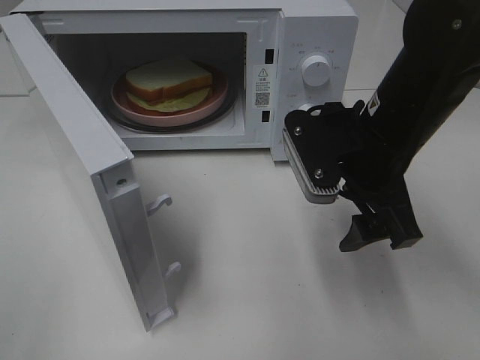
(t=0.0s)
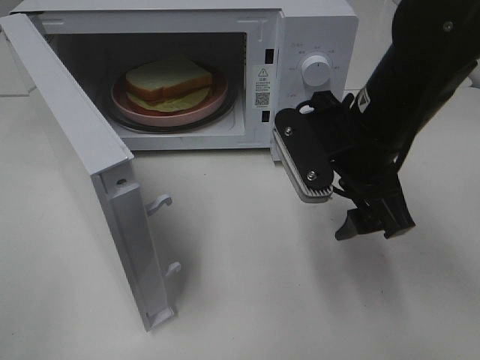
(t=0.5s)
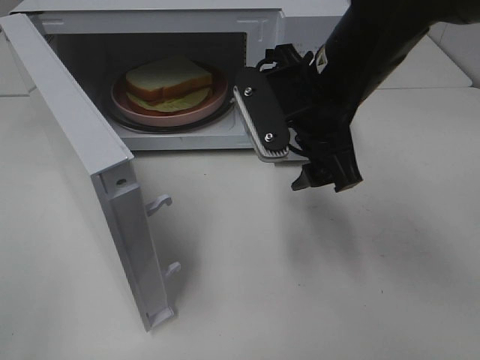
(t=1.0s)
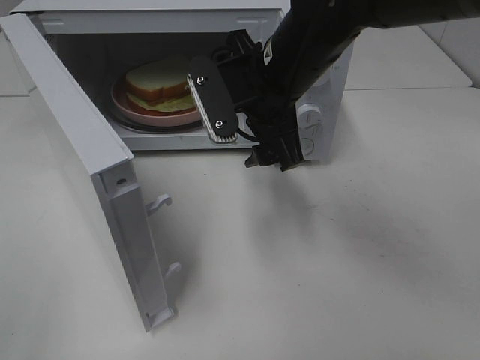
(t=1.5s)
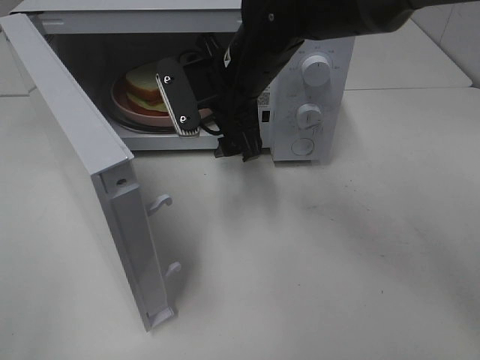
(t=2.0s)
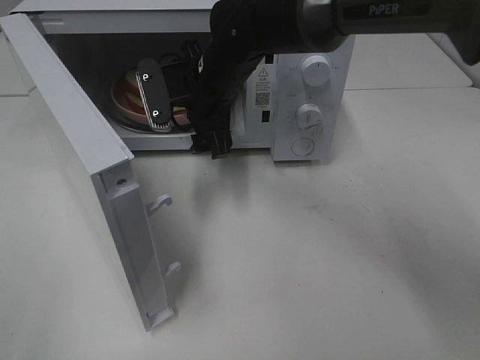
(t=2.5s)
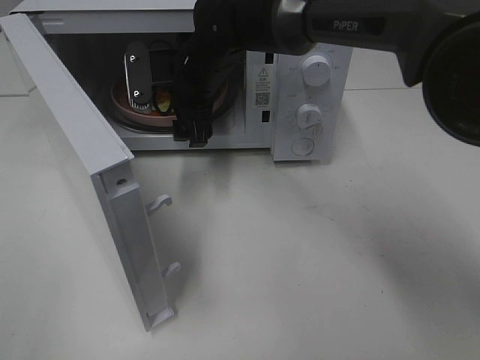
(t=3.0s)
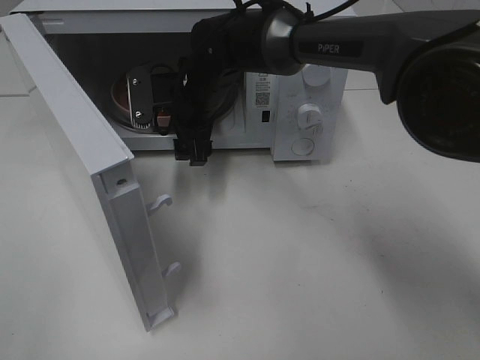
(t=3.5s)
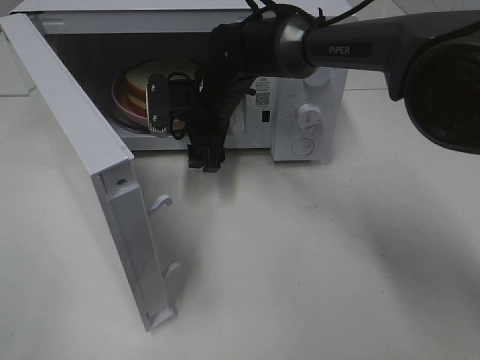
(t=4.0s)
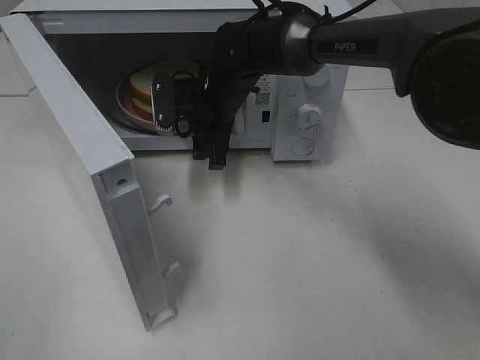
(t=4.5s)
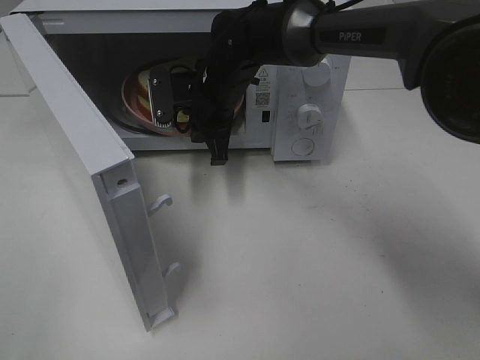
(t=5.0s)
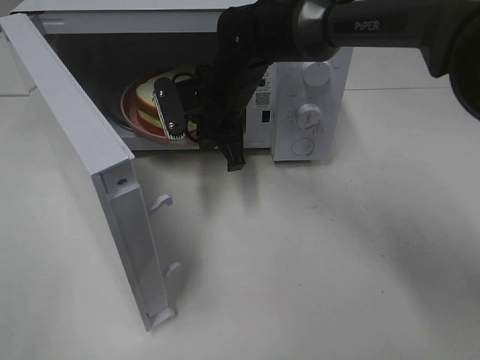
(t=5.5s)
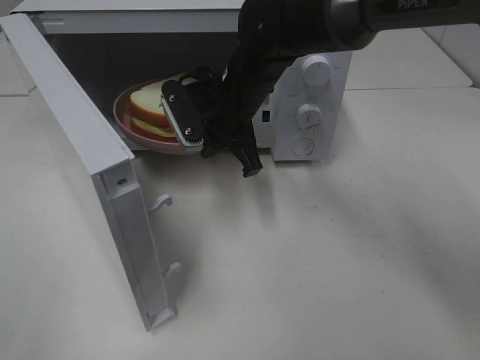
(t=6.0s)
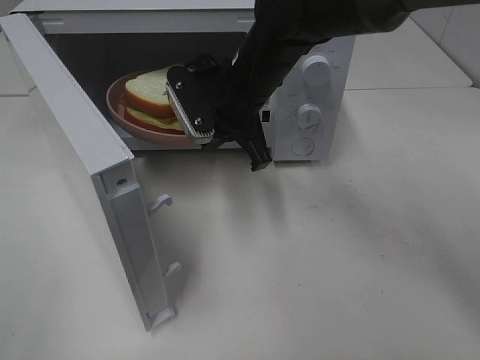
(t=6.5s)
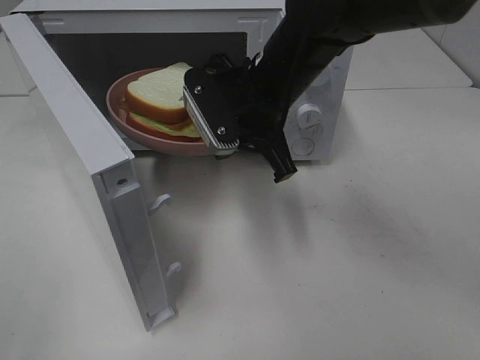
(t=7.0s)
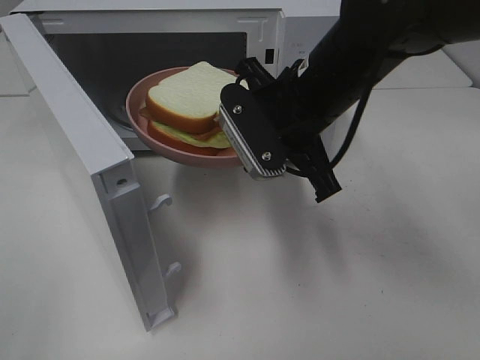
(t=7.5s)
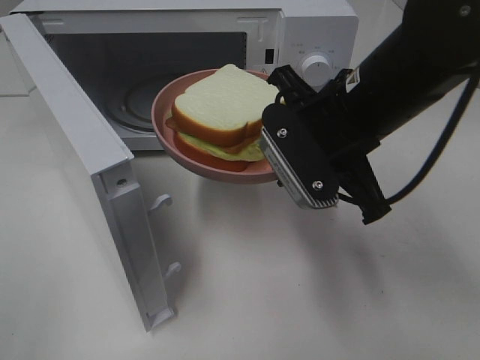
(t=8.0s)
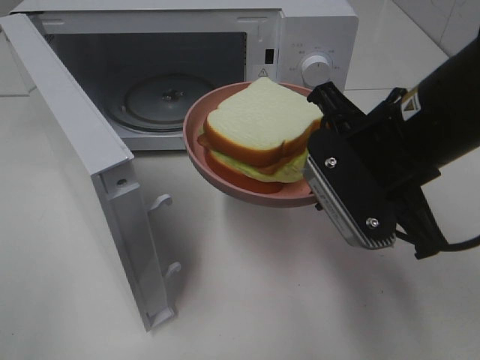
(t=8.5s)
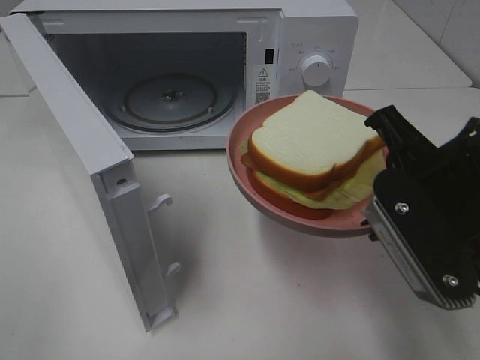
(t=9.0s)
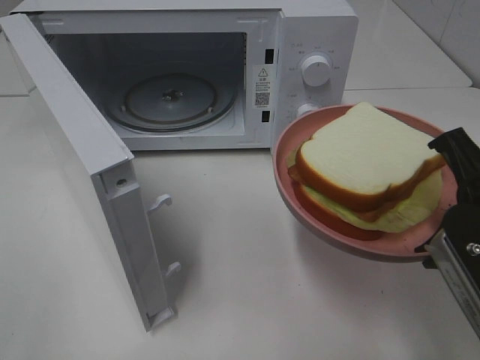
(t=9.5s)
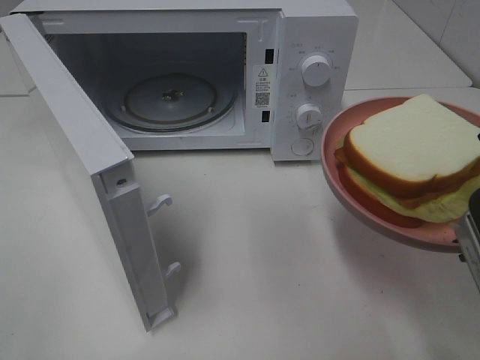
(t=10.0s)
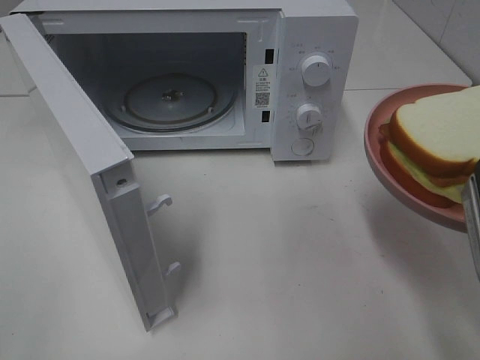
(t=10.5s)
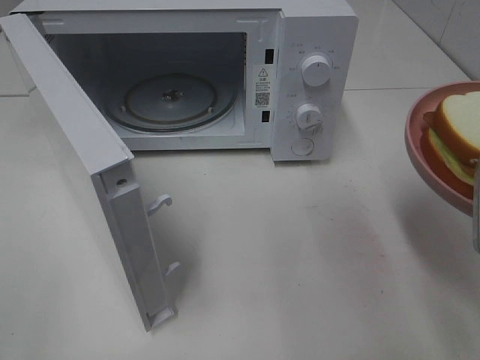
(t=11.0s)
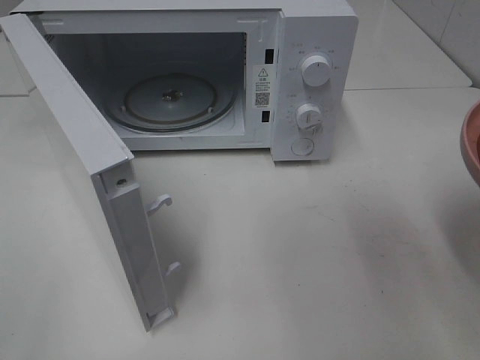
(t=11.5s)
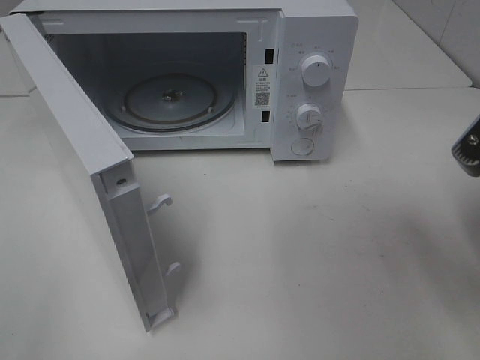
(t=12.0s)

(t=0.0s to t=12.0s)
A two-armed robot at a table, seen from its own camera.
Task of the whole recording: Heat Sandwich.
Step, t=0.0s - t=4.5s: Right hand: grab the plate with the sandwich.
t=0.0s - t=2.0s: The right gripper shifts approximately 15 cm to the left and forward.
t=2.0s - t=4.0s: The right gripper moves downward and forward, roughly 10 cm.
t=4.0s - t=6.0s: The right gripper changes place by roughly 5 cm, and closes up.
t=6.0s - t=8.0s: The right gripper is displaced backward, to the right and upward by approximately 20 cm.
t=8.0s - t=10.0s: The right gripper shifts roughly 15 cm backward and to the right.

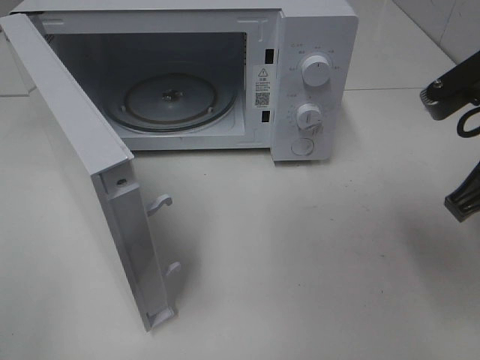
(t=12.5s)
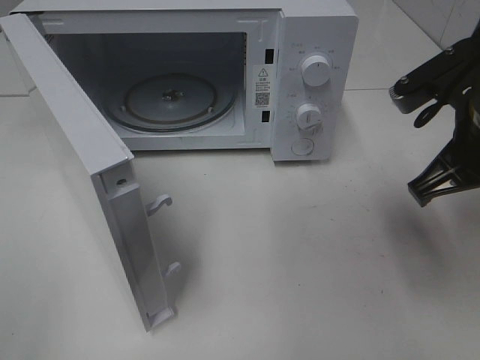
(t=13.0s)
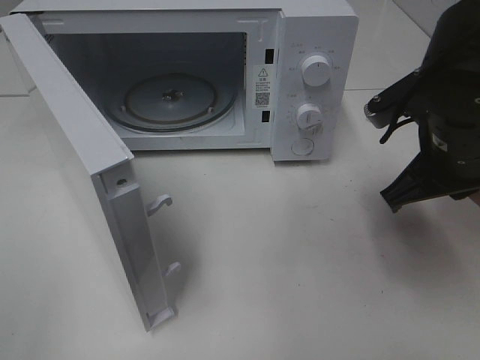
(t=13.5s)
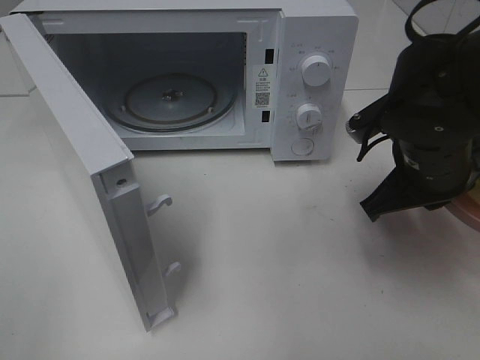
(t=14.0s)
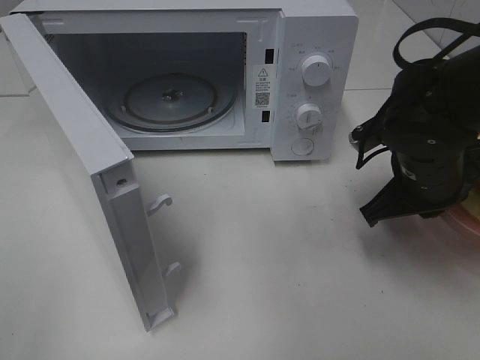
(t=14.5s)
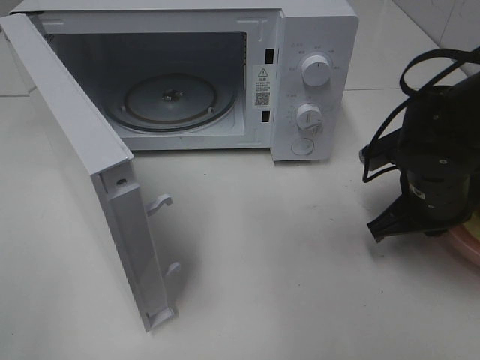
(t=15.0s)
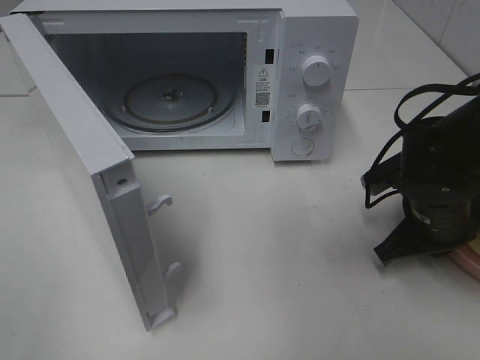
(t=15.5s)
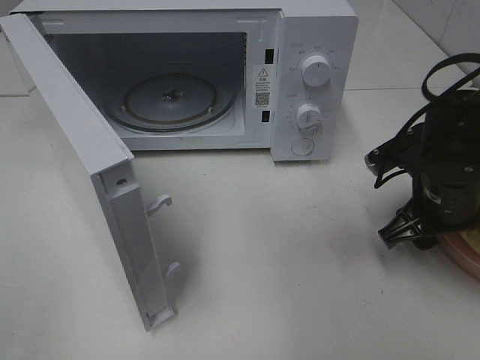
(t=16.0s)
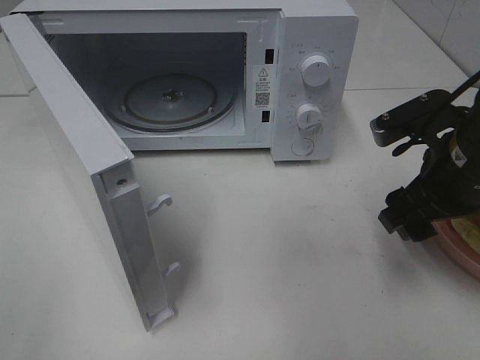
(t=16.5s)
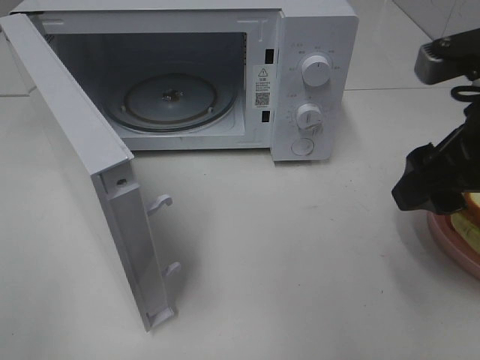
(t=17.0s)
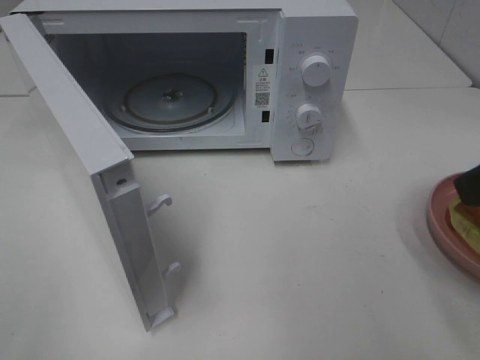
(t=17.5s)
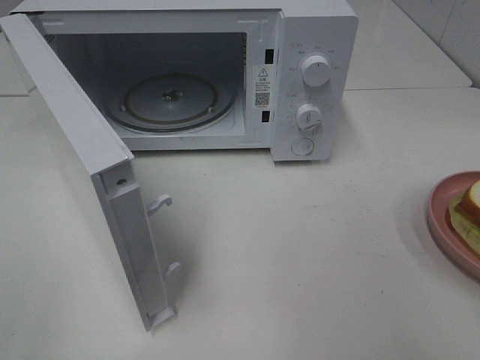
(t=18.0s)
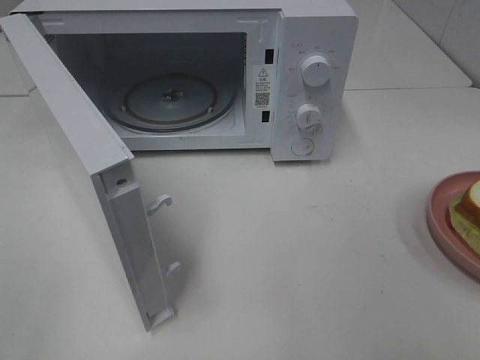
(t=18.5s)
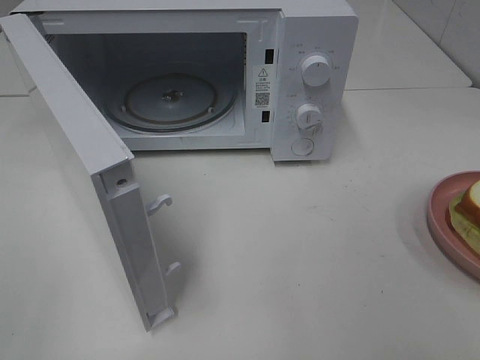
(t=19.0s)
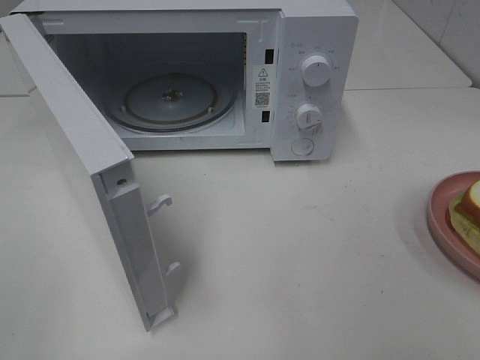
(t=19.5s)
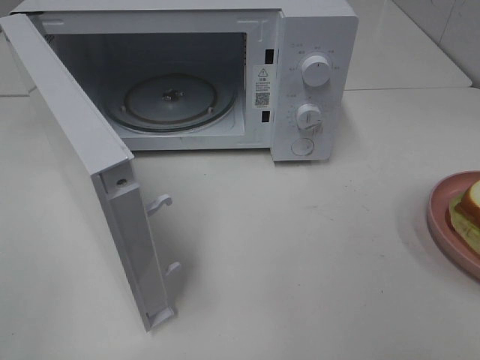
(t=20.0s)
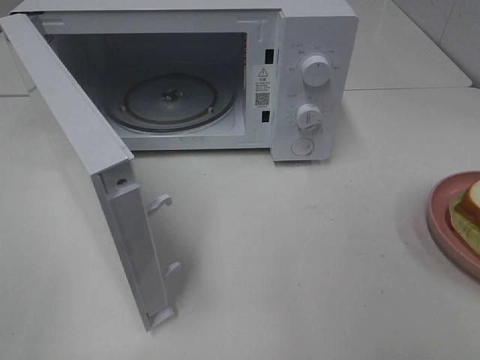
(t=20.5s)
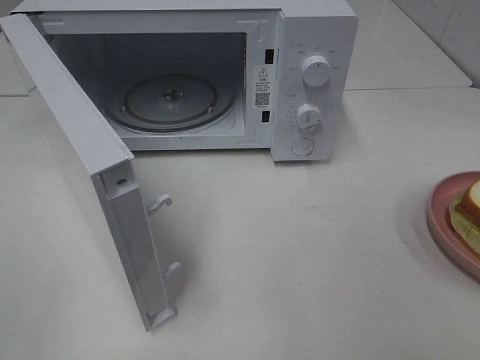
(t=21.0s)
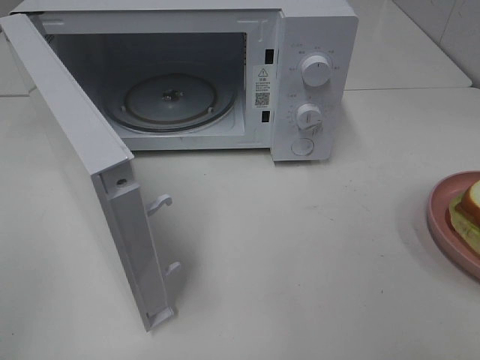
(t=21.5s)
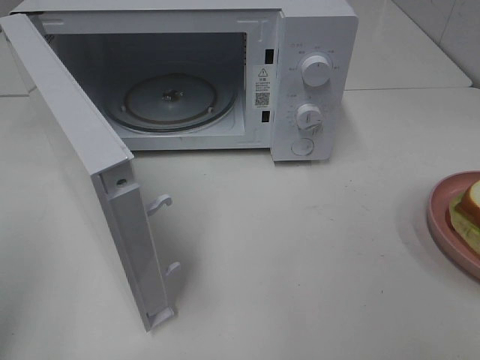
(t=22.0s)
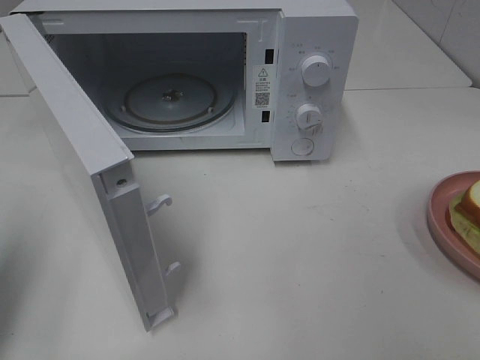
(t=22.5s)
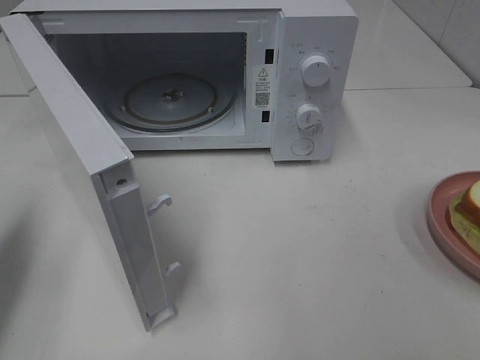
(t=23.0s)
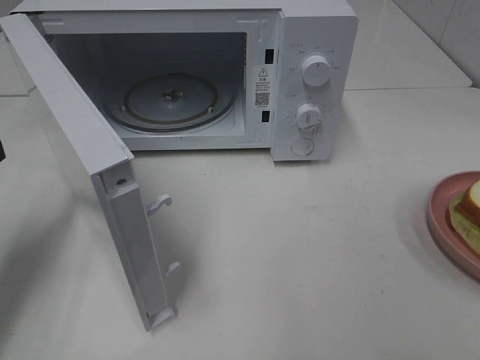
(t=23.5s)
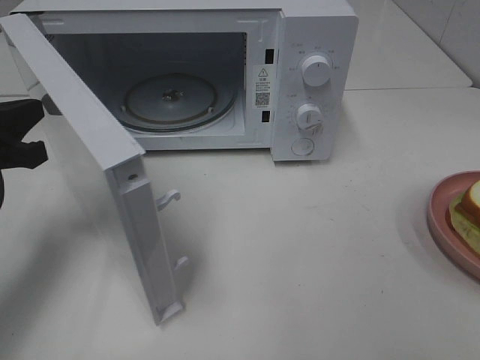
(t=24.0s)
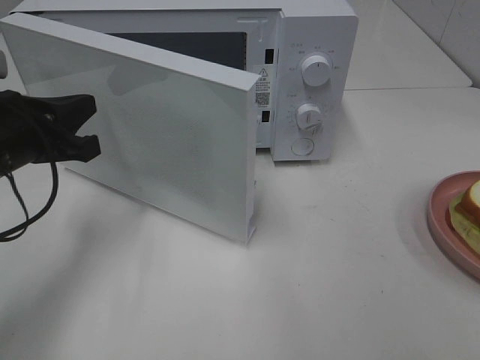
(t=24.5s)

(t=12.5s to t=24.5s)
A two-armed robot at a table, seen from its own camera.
Task of the whole recording: Heat Sandwich.
Step, t=12.5s - t=17.0s: Right hand: place the plate on the table.
t=12.5s - t=14.5s: The right gripper heads downward and forward, covering approximately 15 cm.
t=14.5s - t=16.5s: The right gripper ends up some 5 cm from where it was, and opens up.
t=16.5s - t=18.5s: The right gripper is displaced backward and upward by some 25 cm.
t=20.5s - t=22.5s: The left gripper is displaced forward by about 15 cm, and closes up.
t=22.5s - t=24.5s: The left gripper heads forward, to the right and downward, covering some 15 cm.

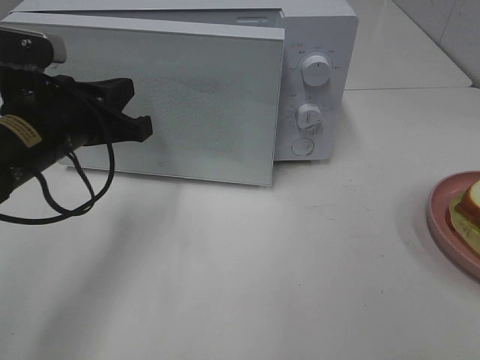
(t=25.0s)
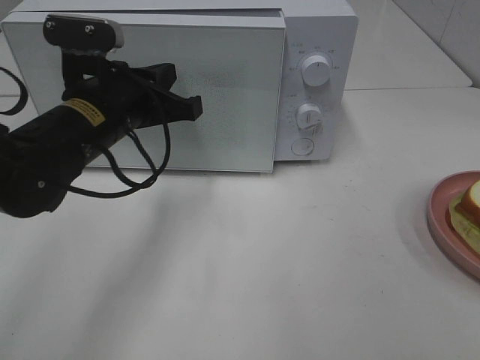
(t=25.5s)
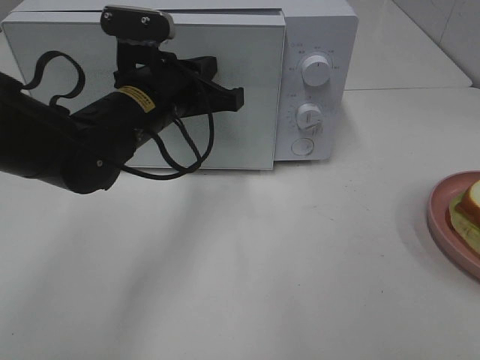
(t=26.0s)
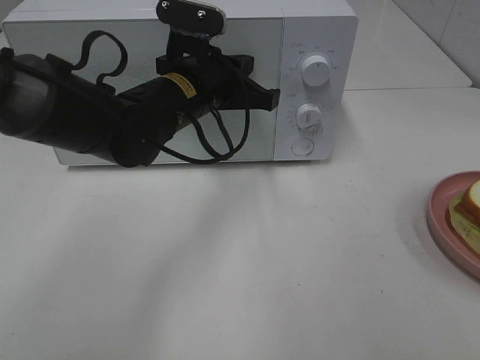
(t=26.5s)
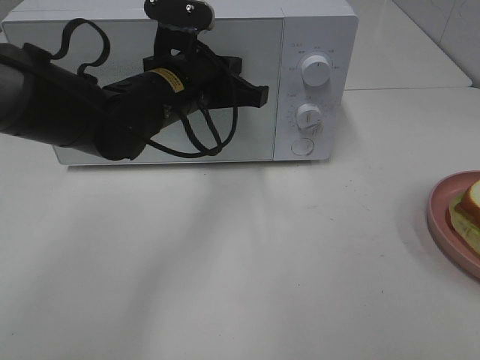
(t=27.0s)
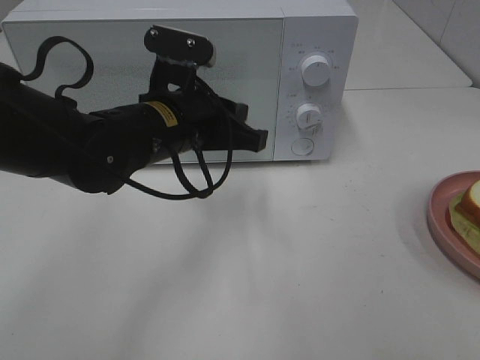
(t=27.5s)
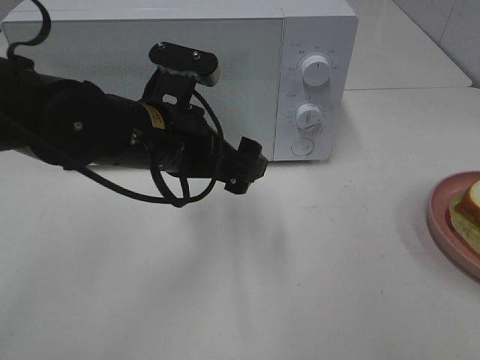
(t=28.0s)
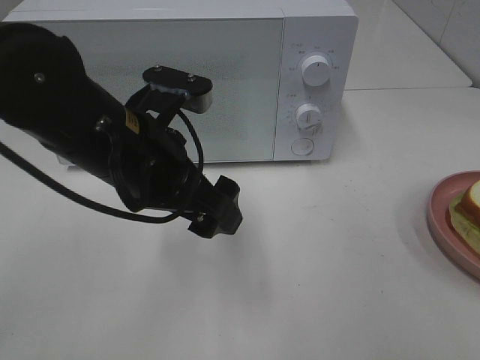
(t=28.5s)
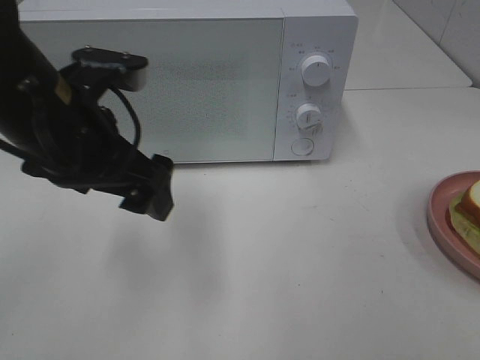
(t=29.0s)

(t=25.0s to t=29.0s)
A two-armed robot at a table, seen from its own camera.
Task of the whole recording: Heat Sandwich.
Step, t=25.0s - t=27.5s: Left hand: close the microwave door.
t=25.0s - t=27.0s: The left gripper travels to the right and forward by some 15 cm.
t=27.0s - t=29.0s: The left gripper travels backward, to the left and upward by some 15 cm, and opens.
